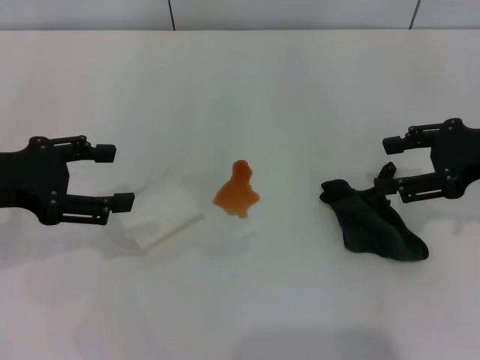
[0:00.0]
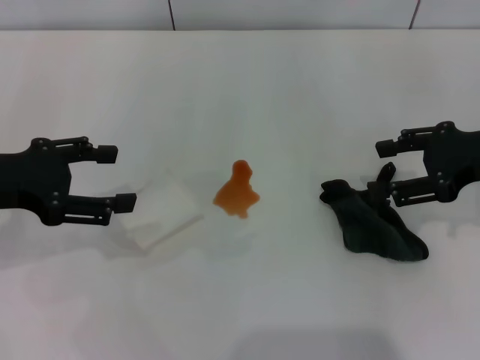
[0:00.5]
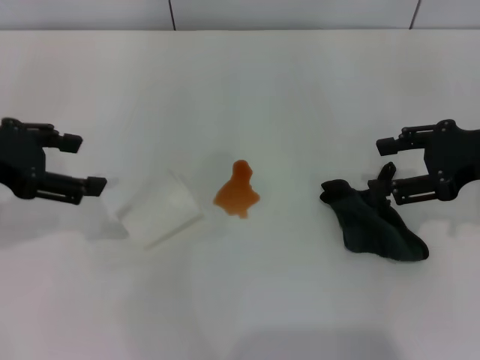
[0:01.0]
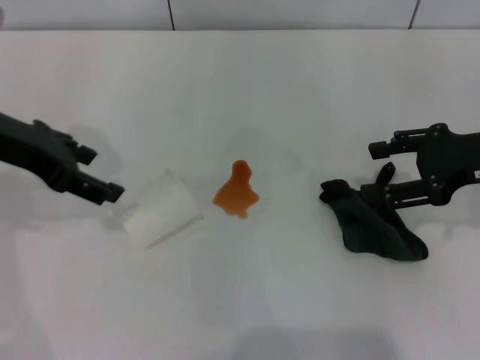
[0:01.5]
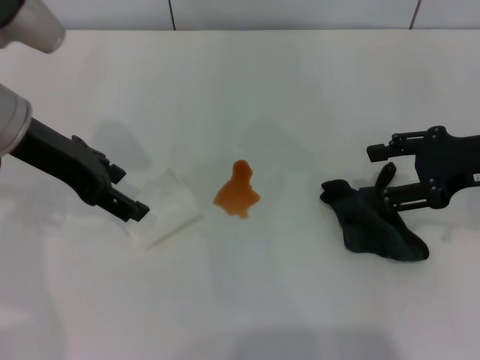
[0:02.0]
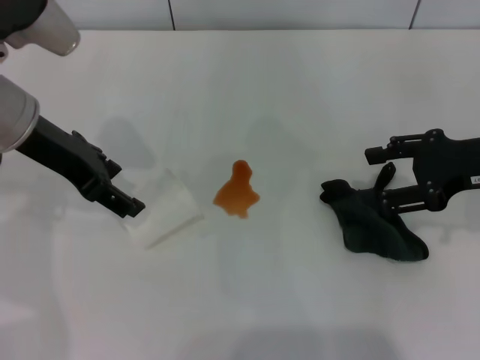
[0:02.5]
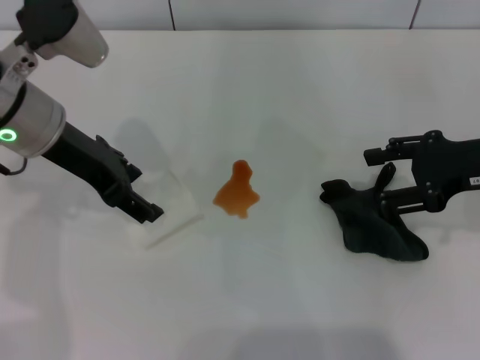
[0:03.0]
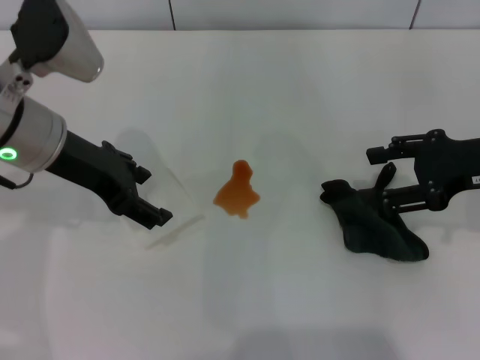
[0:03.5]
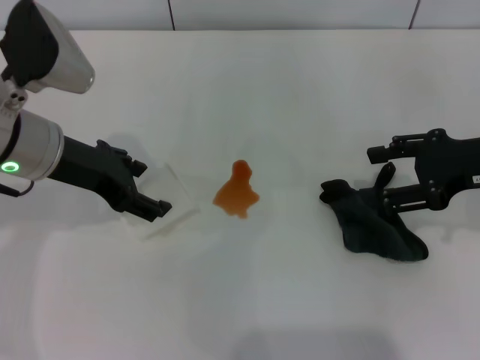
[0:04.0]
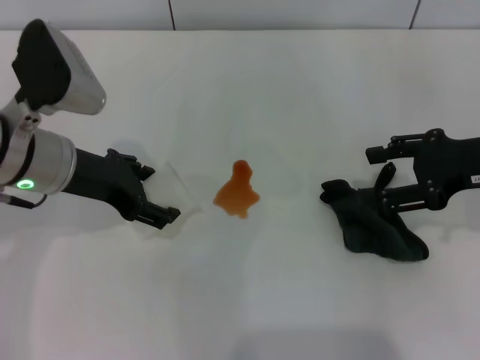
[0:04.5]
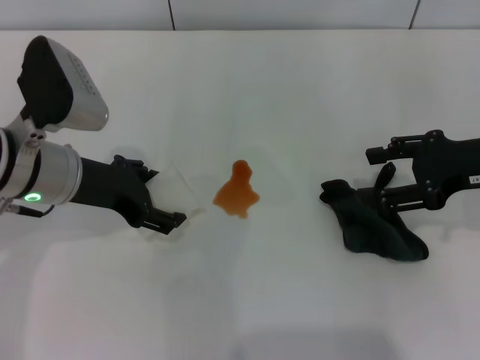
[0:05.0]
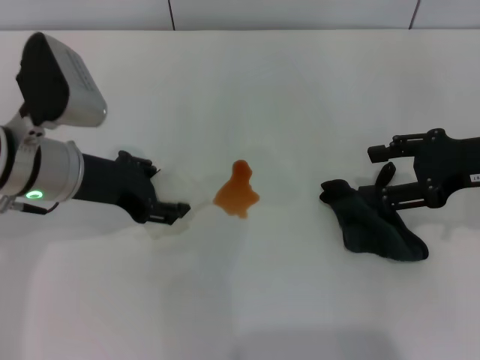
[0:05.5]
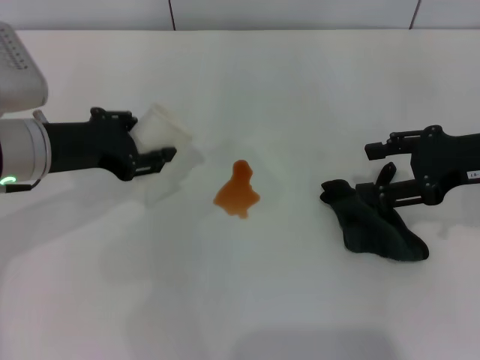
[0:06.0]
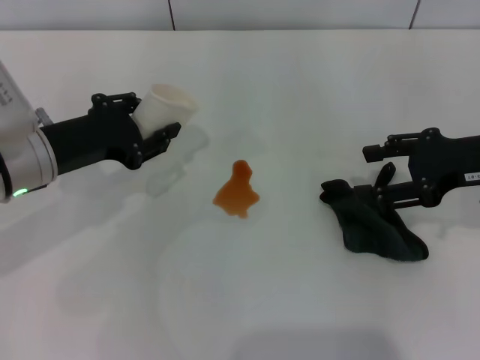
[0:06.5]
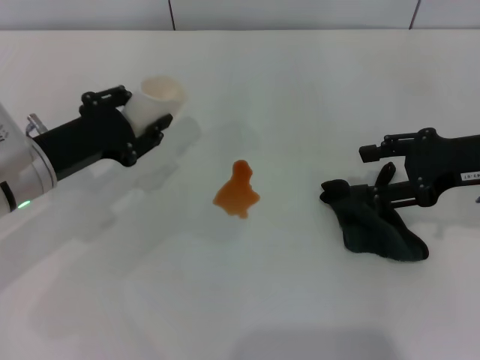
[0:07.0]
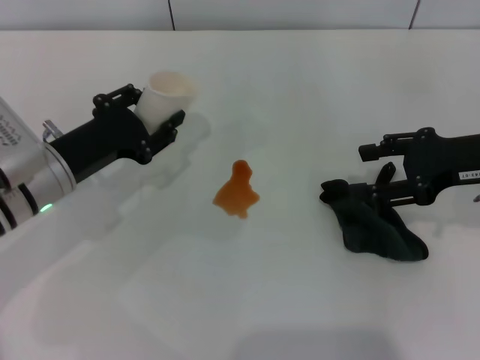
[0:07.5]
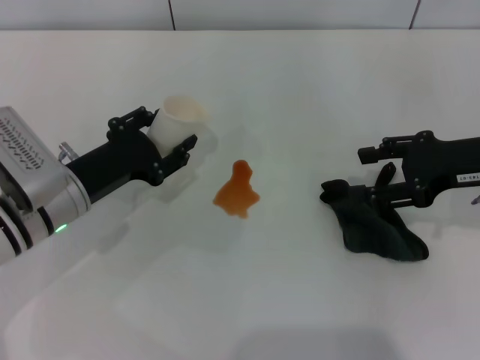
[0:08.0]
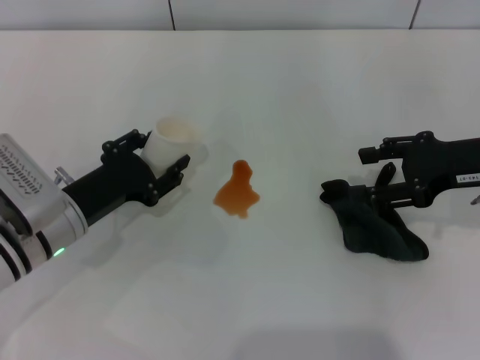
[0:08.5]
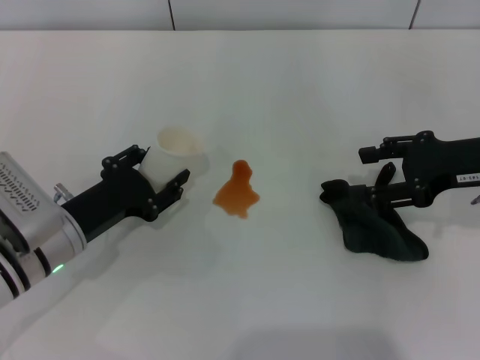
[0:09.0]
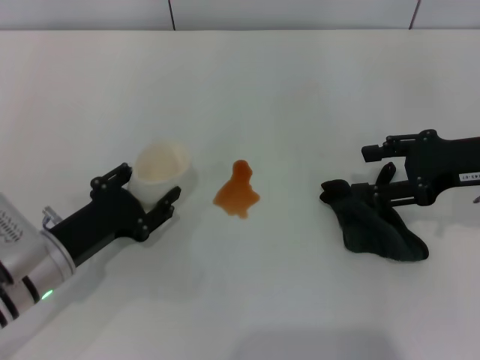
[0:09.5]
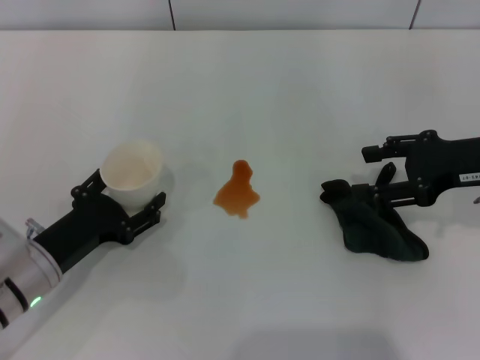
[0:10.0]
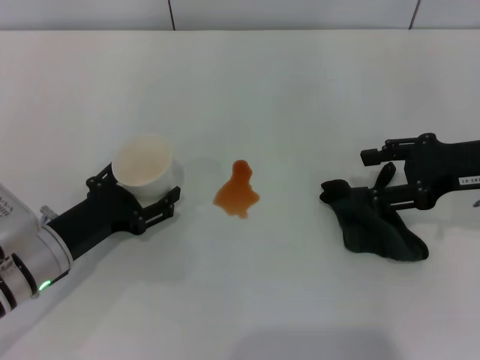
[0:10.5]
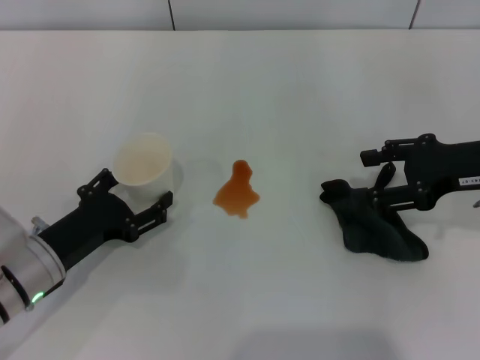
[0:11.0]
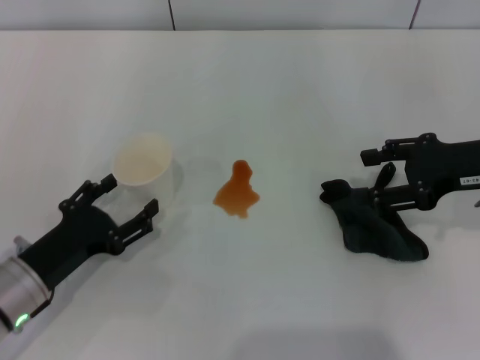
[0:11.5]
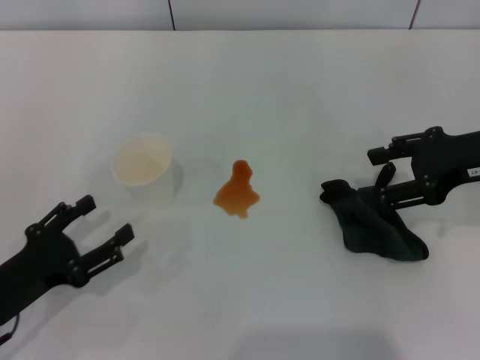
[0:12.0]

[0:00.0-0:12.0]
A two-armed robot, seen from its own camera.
Step, 0:00.0 to 0:05.0: Grasp the paper cup with the left gripper.
Step, 0:05.5 to 0:11.0: Stand the paper cup upright with the left gripper.
0:00.0 to 0:02.0: The left gripper moves to the right and forward, approximately 10 cm.
0:02.0 to 0:04.0: The grippers move only a little.
0:04.0 to 0:06.0: The left gripper closes.
0:06.0 to 0:08.0: The left gripper heads downward, covering roughly 10 cm.
0:08.0 to 0:10.0: The left gripper travels backward by some 5 cm.
0:10.0 to 0:12.0: The left gripper is displaced backward by about 5 cm, and opens its fingers.

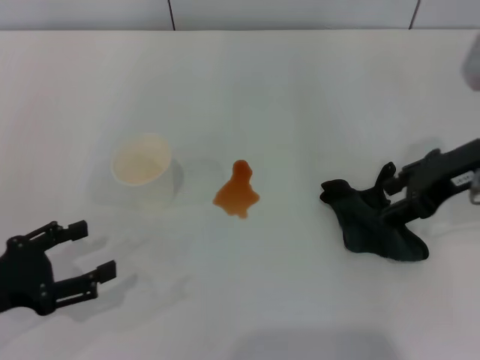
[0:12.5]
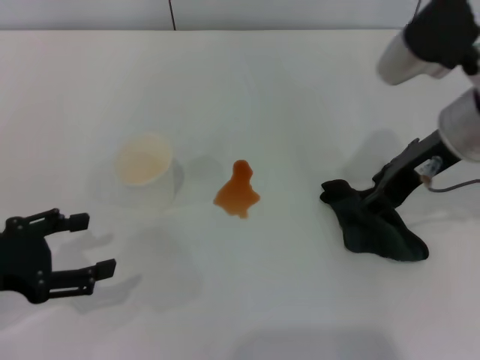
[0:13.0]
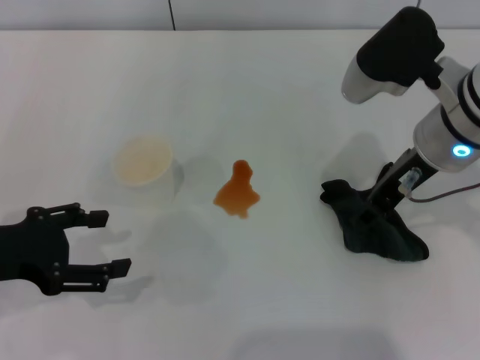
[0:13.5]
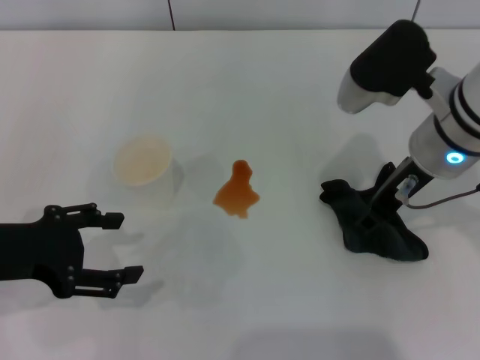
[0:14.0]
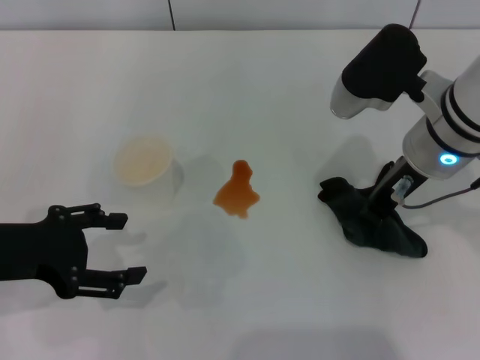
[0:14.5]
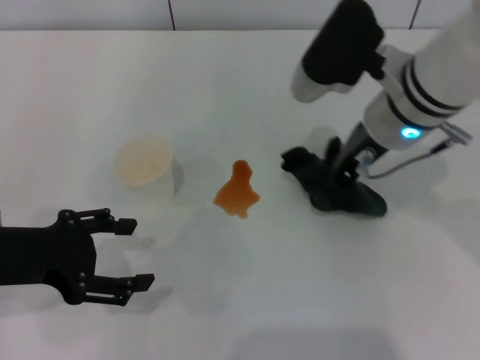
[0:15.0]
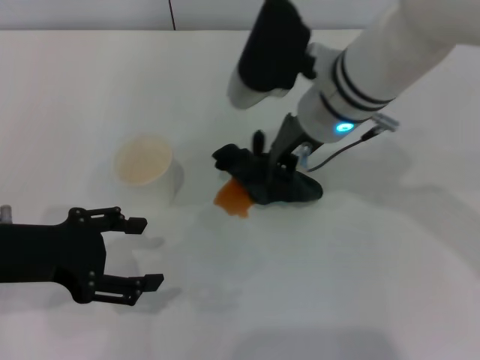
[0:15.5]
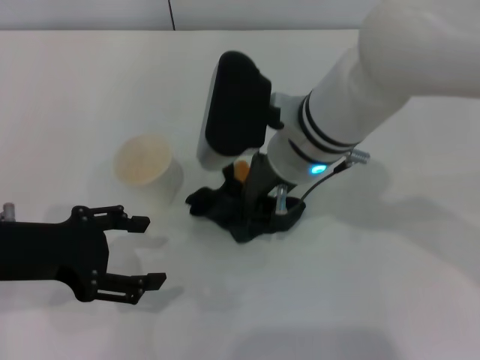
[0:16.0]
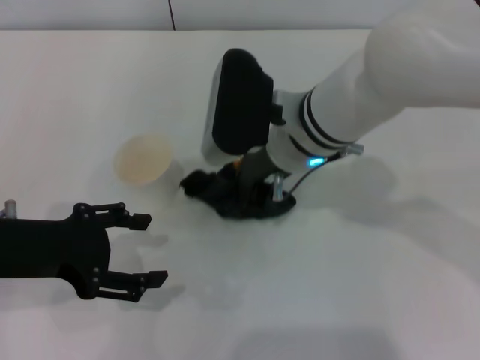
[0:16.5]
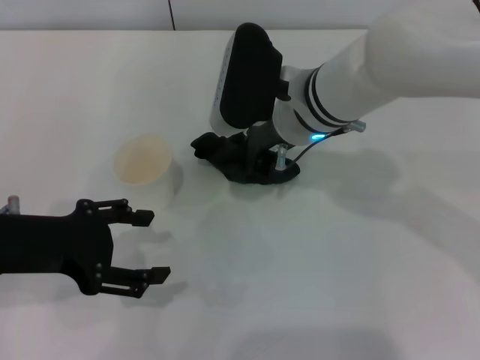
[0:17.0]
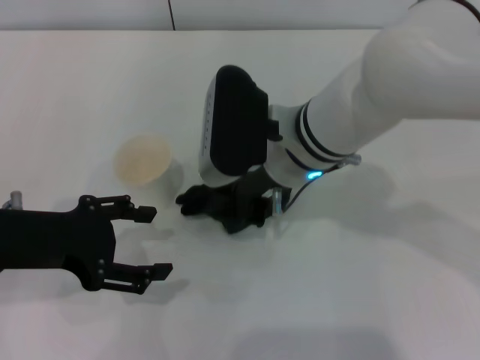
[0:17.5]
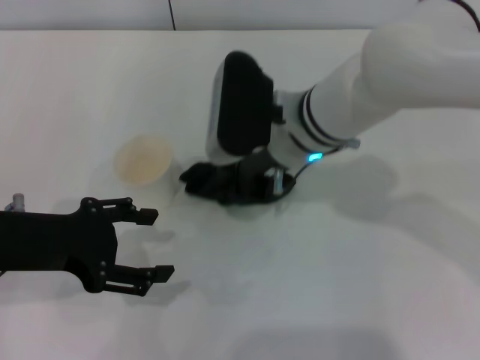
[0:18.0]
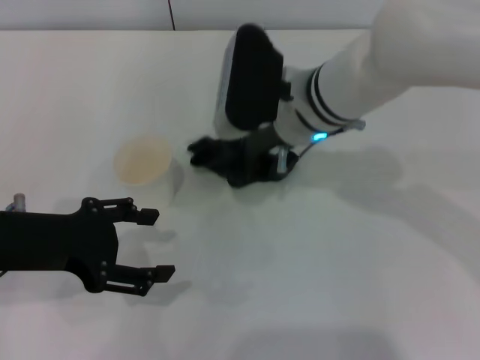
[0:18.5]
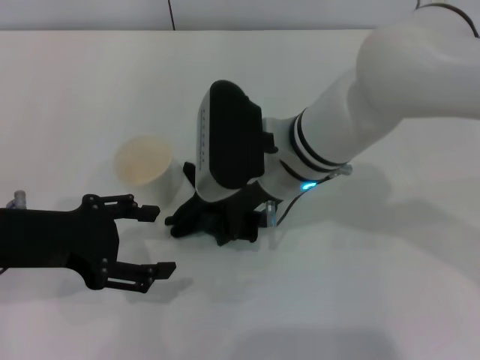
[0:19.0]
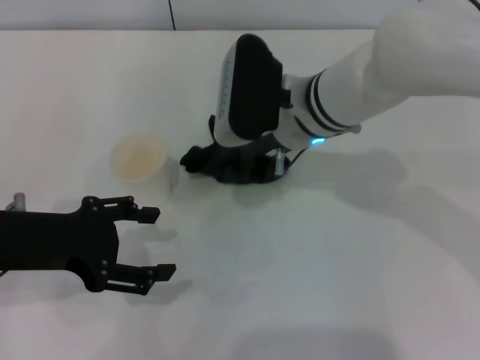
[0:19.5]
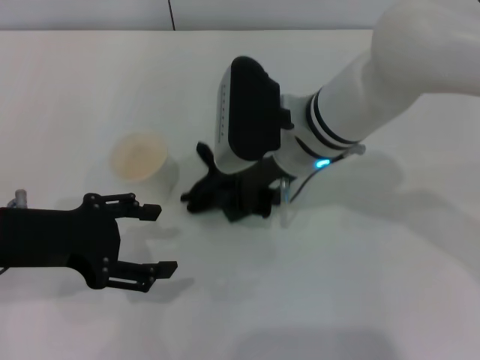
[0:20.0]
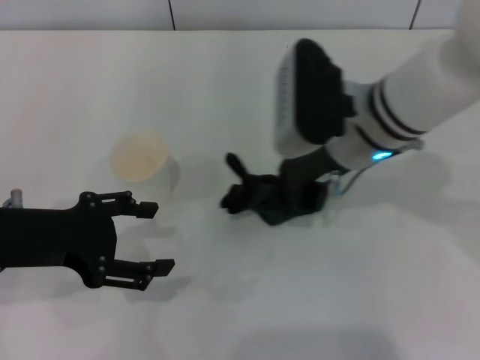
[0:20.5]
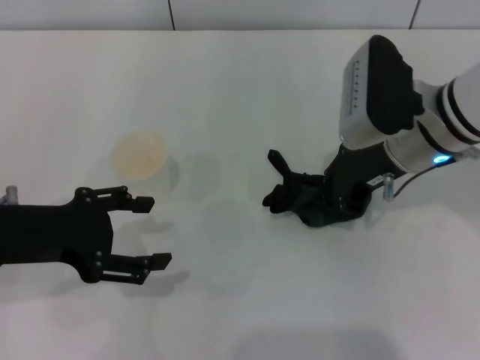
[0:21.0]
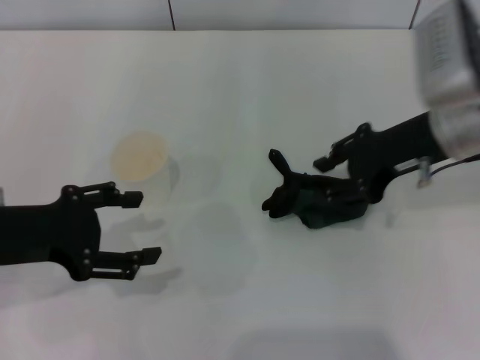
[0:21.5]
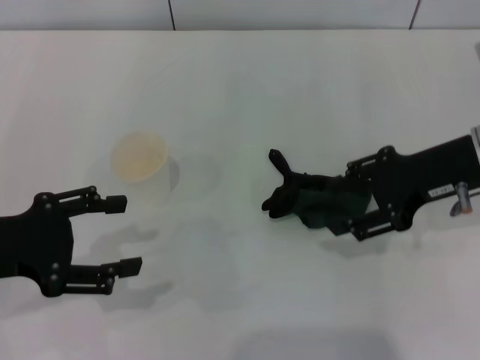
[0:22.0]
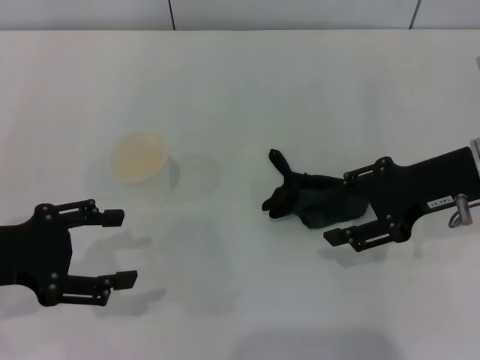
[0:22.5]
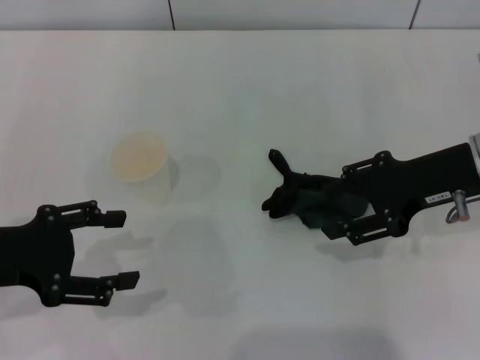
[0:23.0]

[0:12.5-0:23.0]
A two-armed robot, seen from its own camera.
Step, 0:12.5 to 0:14.5: Grasp the rag with the right gripper.
Step, 0:15.0 to 0:21.0: Wipe the stains off the table with the right gripper.
0:12.5 to 0:14.5: The left gripper goes roughly 5 cm upward; the right gripper travels to the left by about 10 cm, and closes its fingers.
0:14.5 to 0:16.5: The right gripper shifts roughly 10 cm to the left.
0:16.5 to 0:19.0: There are only small adjustments of the grippers.
0:19.0 to 0:21.0: The right gripper heads to the right, covering some 15 cm.
0:21.0 to 0:23.0: The right gripper travels to the right by some 10 cm, and opens up.
